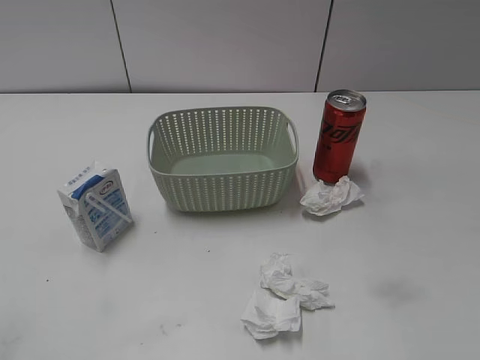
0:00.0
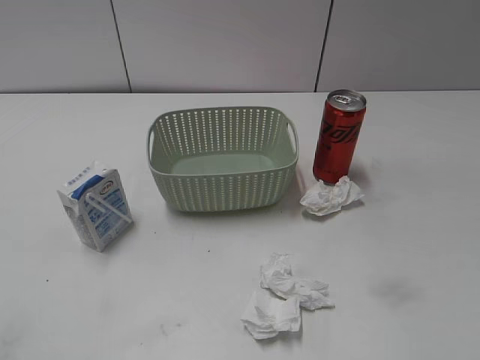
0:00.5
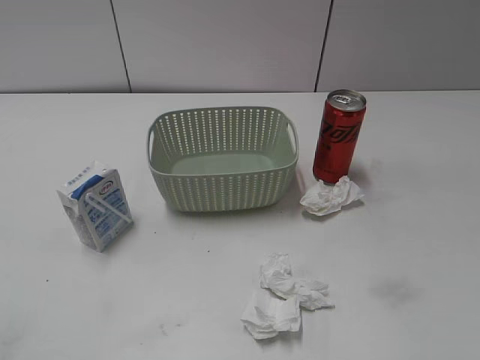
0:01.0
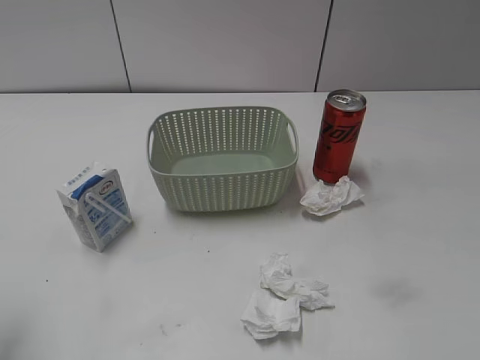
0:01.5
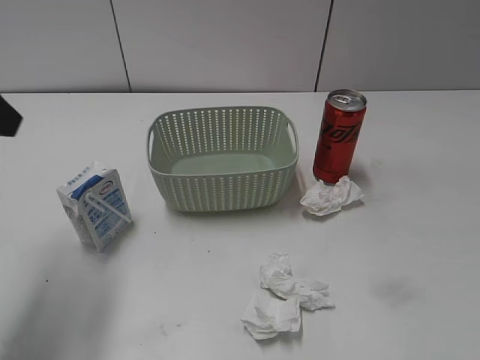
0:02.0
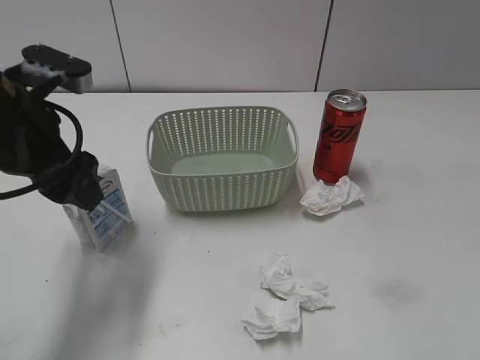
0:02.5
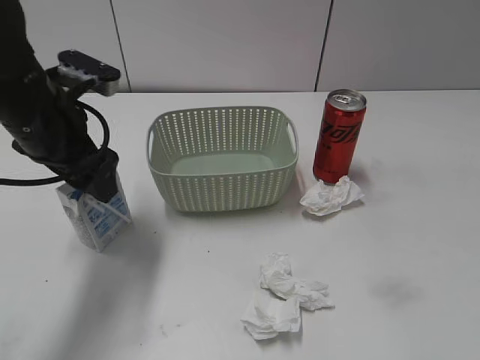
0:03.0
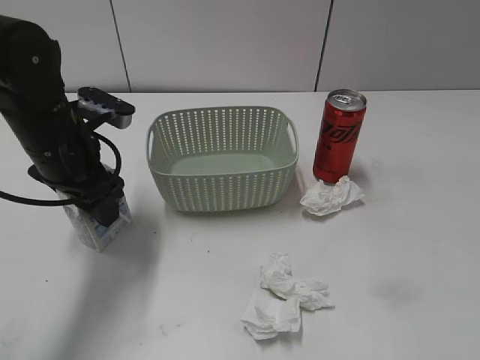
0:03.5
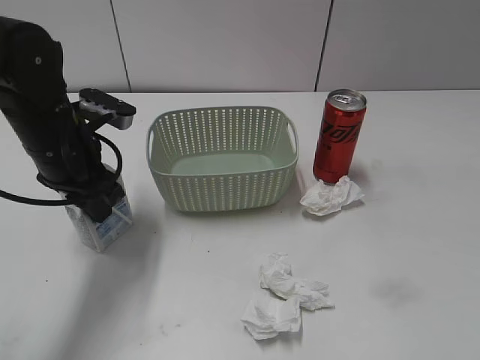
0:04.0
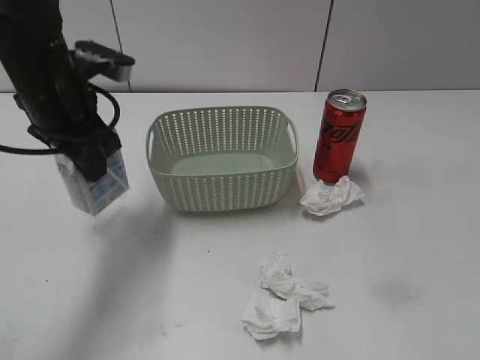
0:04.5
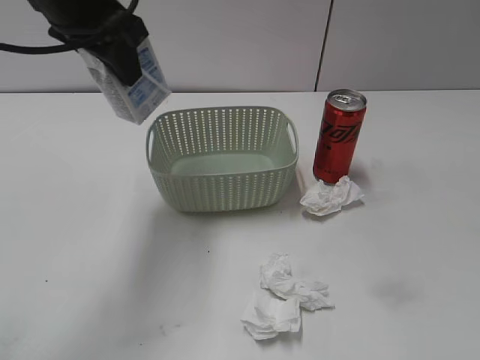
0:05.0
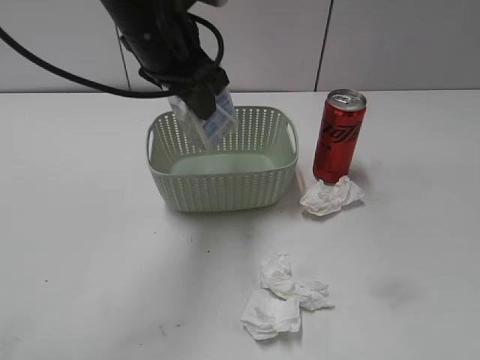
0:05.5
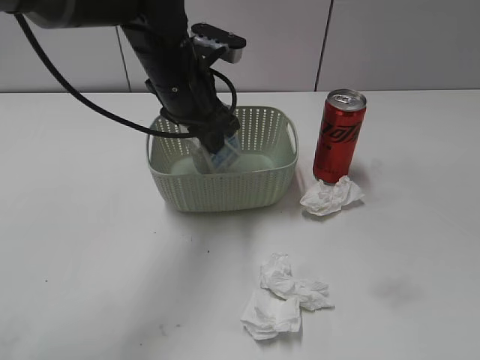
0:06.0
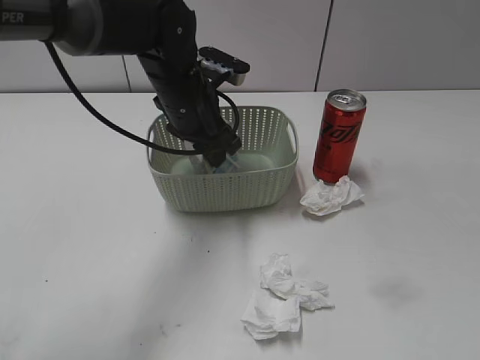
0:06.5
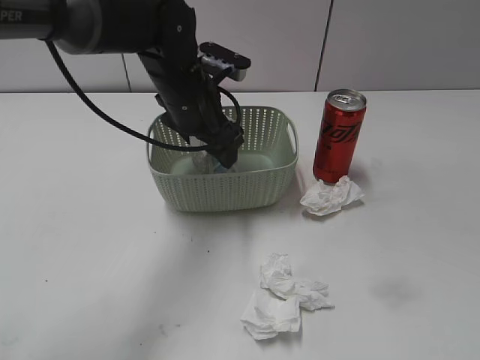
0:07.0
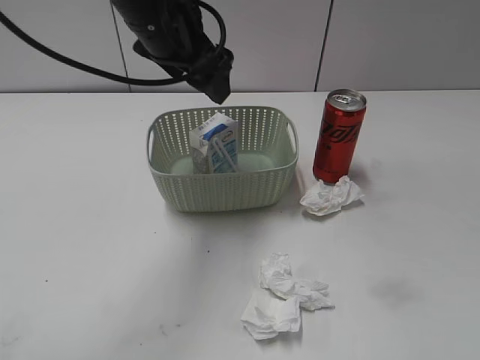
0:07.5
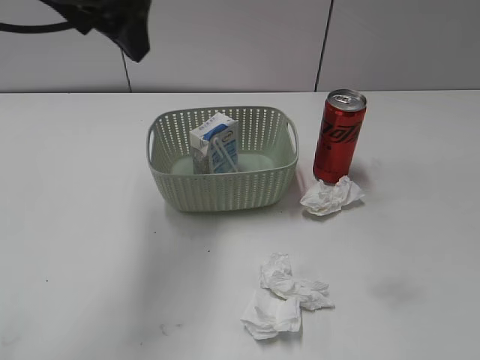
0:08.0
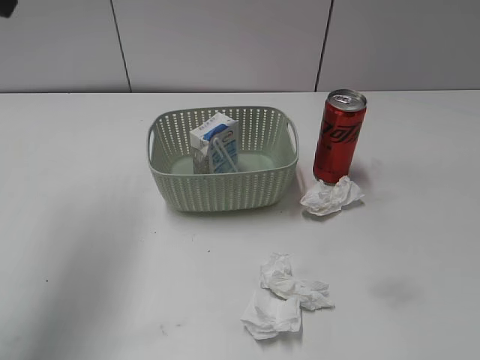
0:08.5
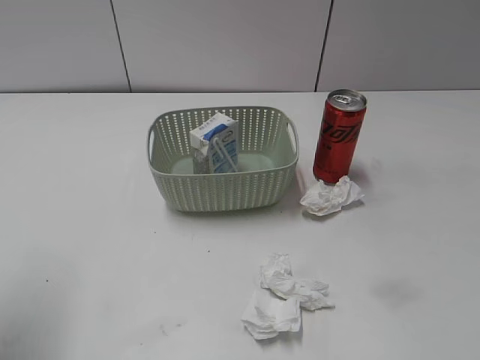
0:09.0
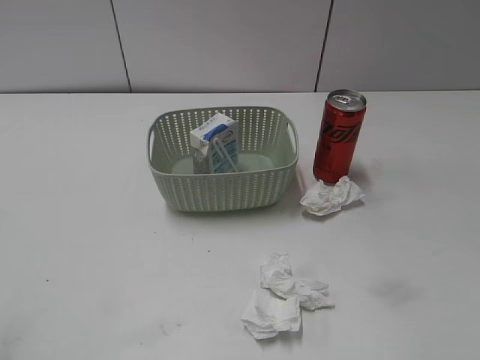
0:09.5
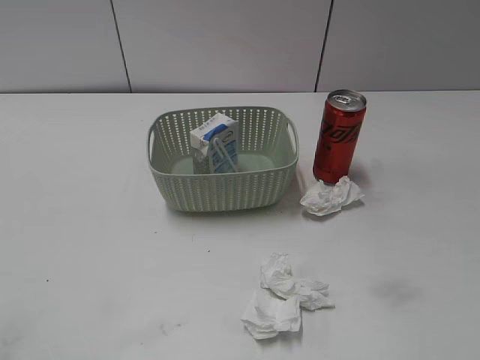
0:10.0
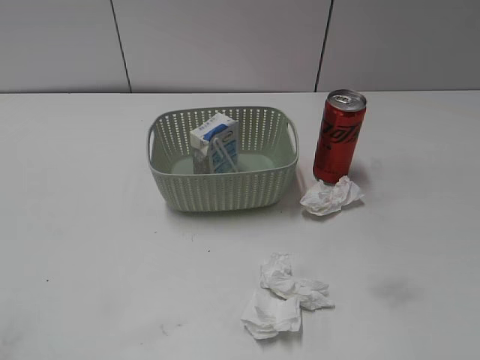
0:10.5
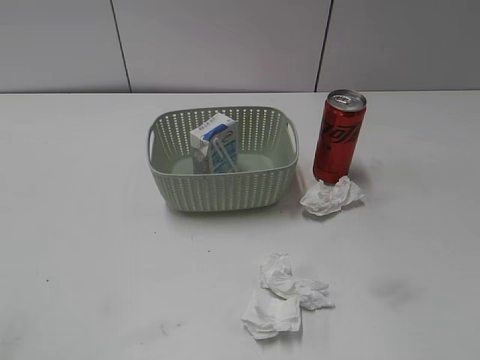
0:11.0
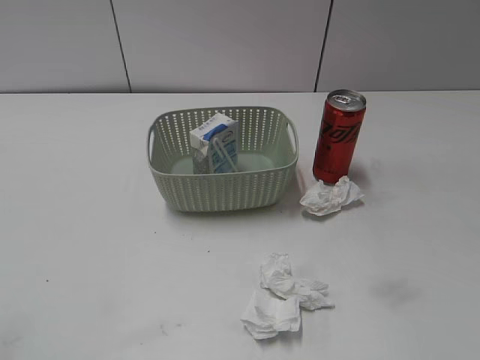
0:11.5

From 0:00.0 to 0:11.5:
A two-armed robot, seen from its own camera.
Step, from 0:02.0 to 0:04.0: Grasp the milk with left gripper.
Step, from 0:04.5 to 0:07.5: Place the milk in the basket with left gripper.
From 0:02.0 to 0:04.0: The left gripper is displaced downward, forward and to the right by approximately 20 cm, and closes up.
From 0:04.0 to 0:06.0: The left gripper heads to the right and forward, covering roughly 15 cm, and travels upward and back again, roughly 15 cm each way.
From 0:06.0 to 0:07.5: The left gripper shifts approximately 5 cm upward, and opens up.
From 0:07.5 to 0:09.5: The left gripper shifts some 35 cm backward and to the left.

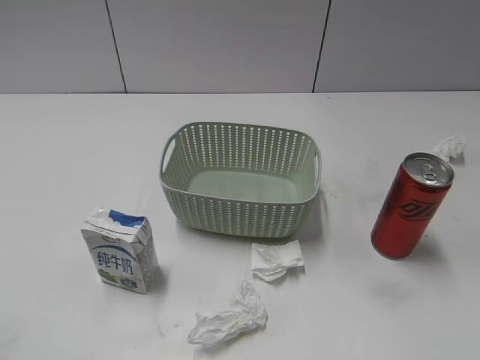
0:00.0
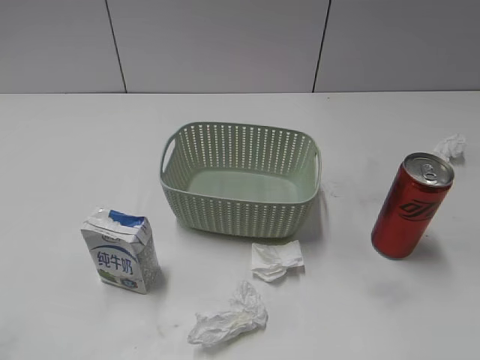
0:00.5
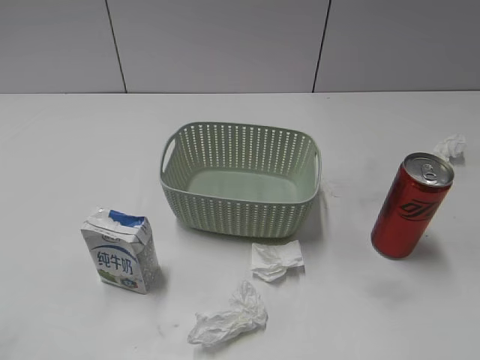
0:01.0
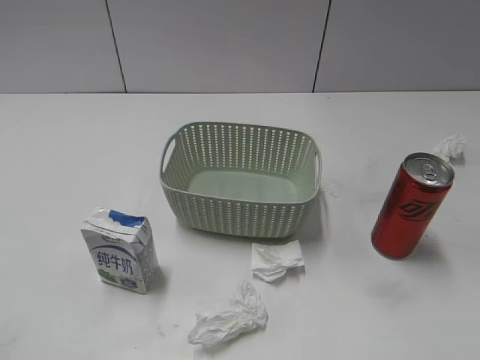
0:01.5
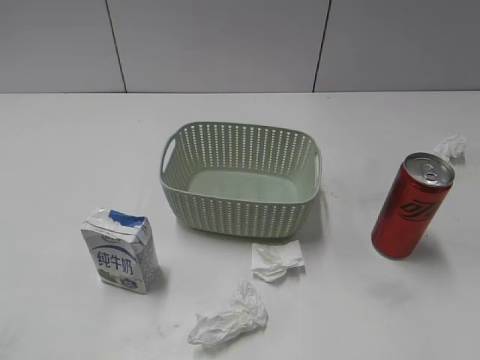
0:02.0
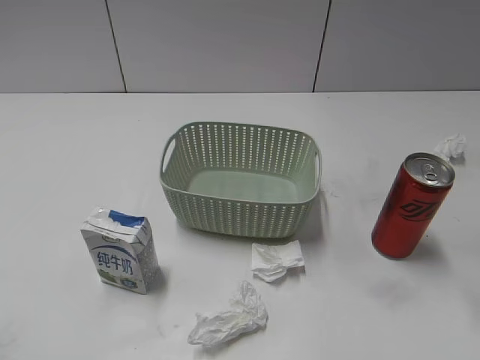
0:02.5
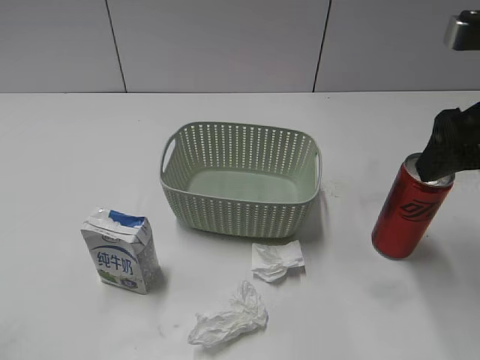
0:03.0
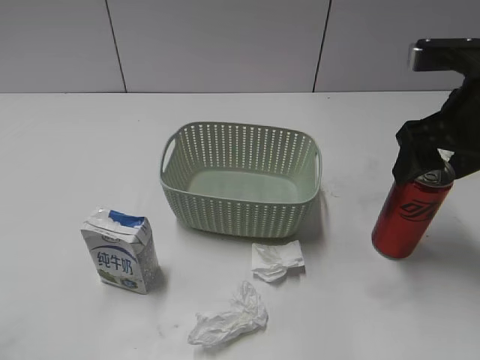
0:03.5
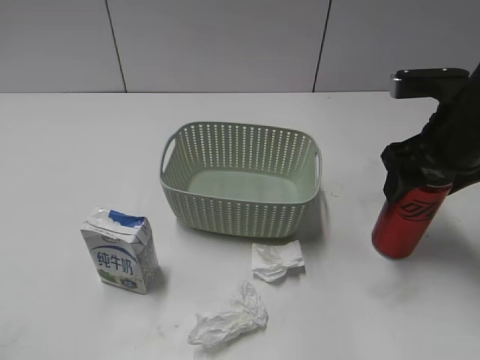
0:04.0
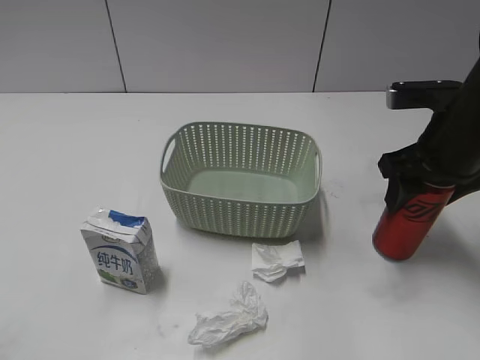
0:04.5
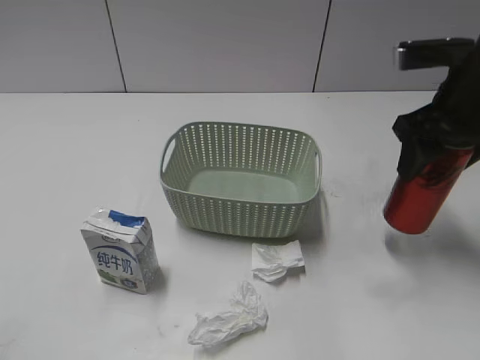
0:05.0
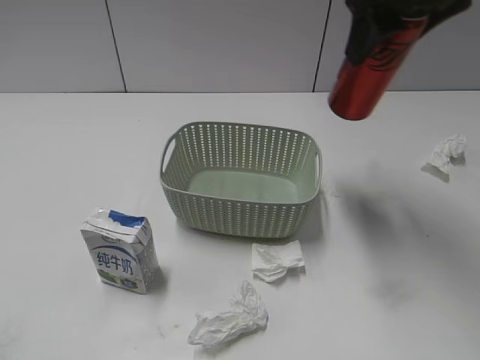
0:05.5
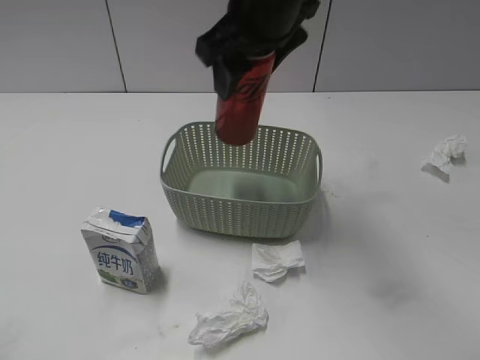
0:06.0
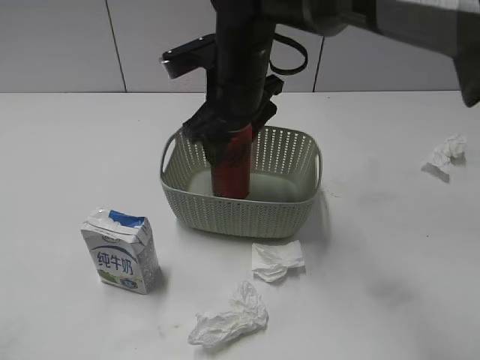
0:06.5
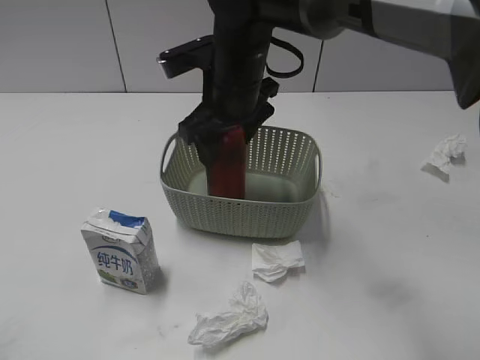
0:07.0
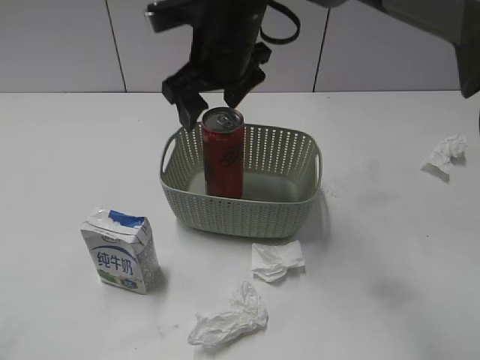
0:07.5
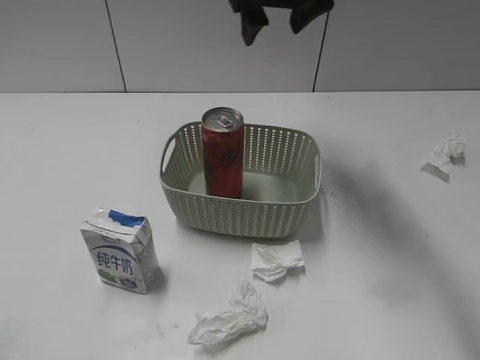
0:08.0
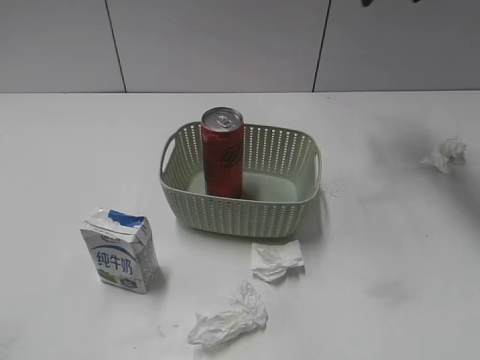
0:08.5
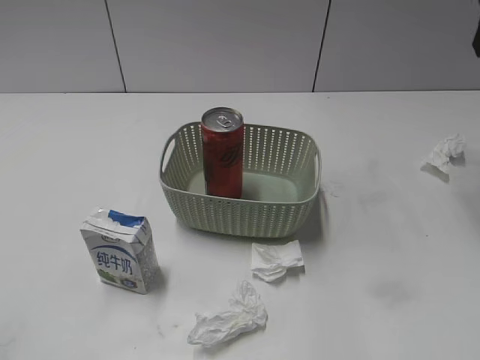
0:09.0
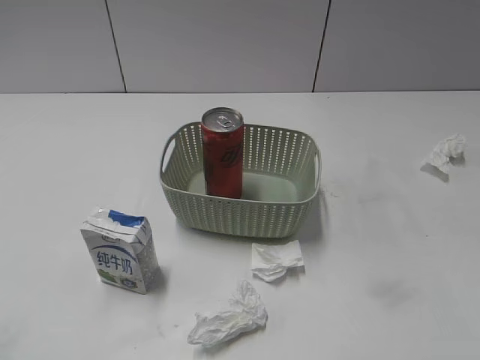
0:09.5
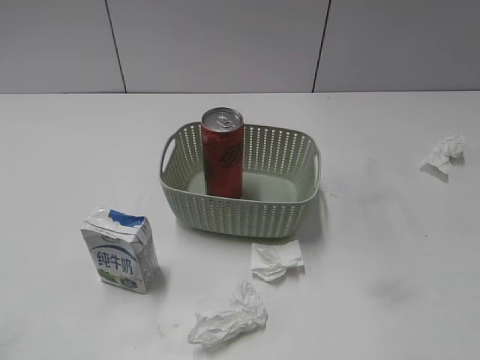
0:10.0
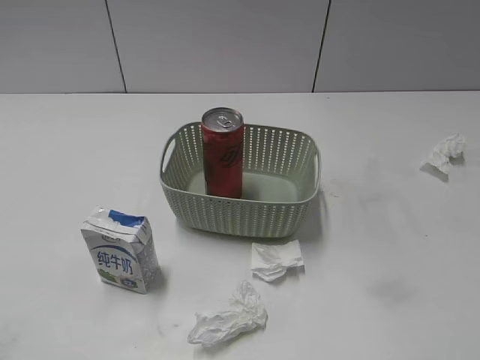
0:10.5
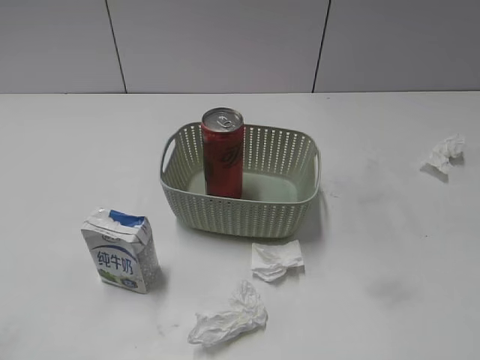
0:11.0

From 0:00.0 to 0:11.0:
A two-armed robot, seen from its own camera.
Step, from 0:03.0 to 0:04.5: Grasp the cola can with right gripper.
Step, from 0:05.0 to 0:07.5: Place the cola can in the basket with right gripper.
From 0:02.0 to 0:03.5: The right gripper travels forward, downward and to the left by approximately 20 cm.
From 0:03.5 to 0:05.5: The right gripper travels upward and to the left by roughly 15 cm, and closes.
From 0:05.5 to 0:07.5: The right gripper goes about 20 cm to the left and downward, and opens.
From 0:07.5 to 0:09.0: The right gripper travels to the right by some 30 cm, and closes up.
From 0:09.0 to 0:11.0: The right gripper shifts approximately 40 cm backward.
